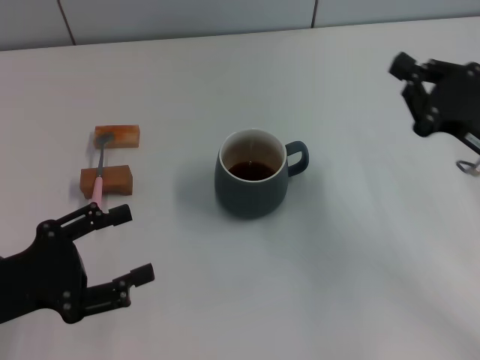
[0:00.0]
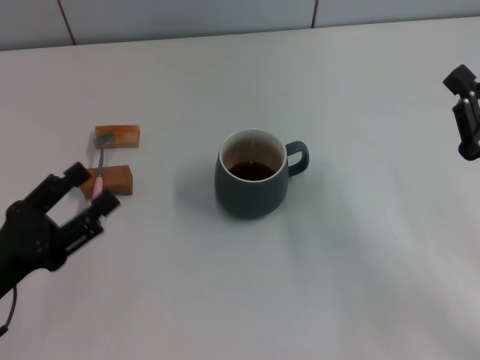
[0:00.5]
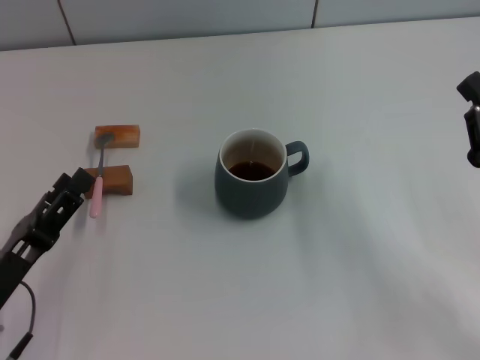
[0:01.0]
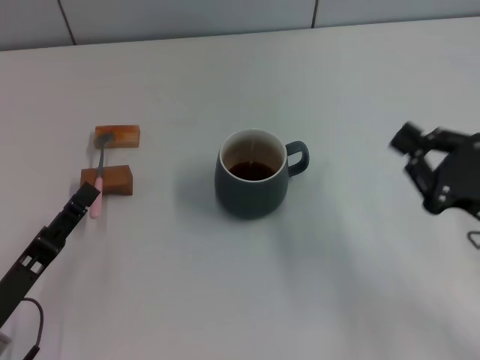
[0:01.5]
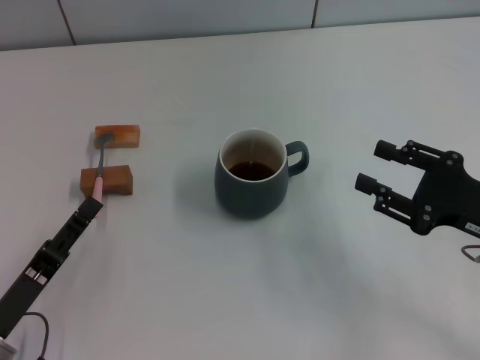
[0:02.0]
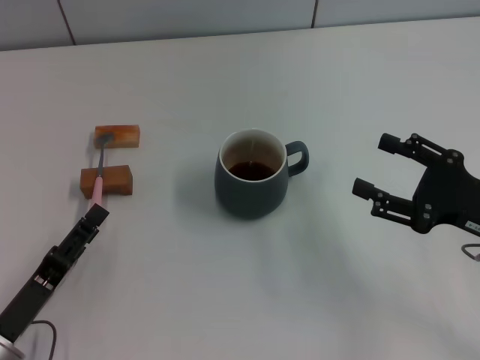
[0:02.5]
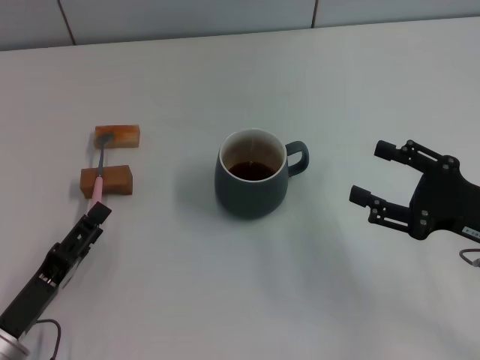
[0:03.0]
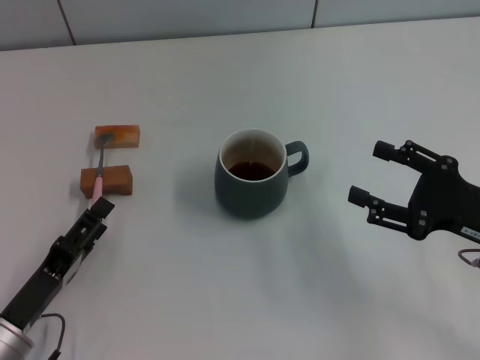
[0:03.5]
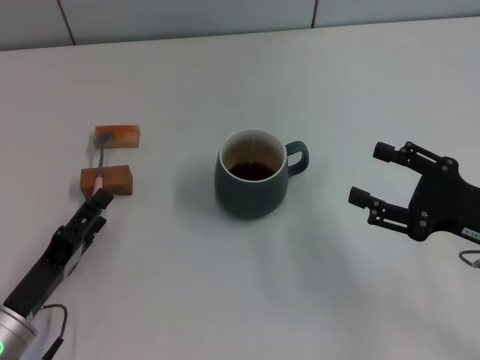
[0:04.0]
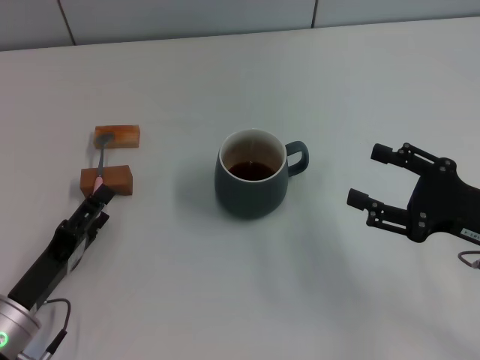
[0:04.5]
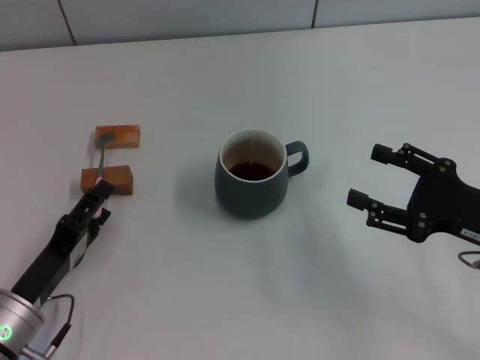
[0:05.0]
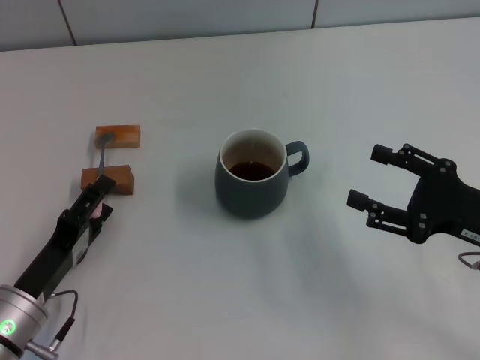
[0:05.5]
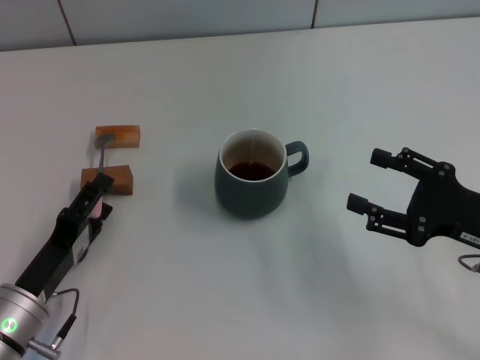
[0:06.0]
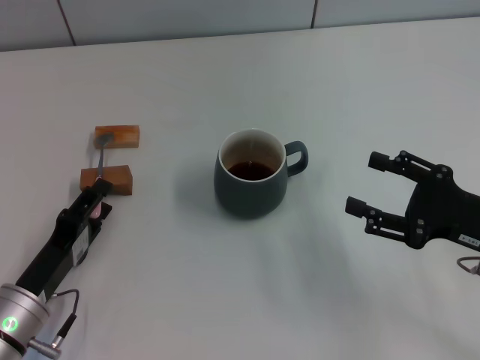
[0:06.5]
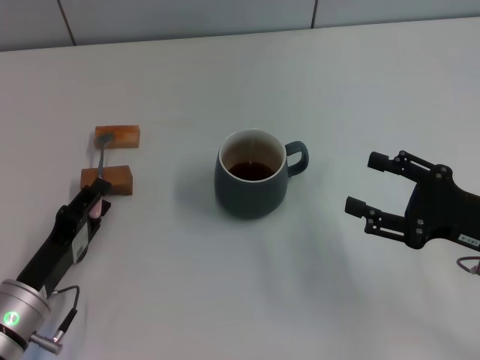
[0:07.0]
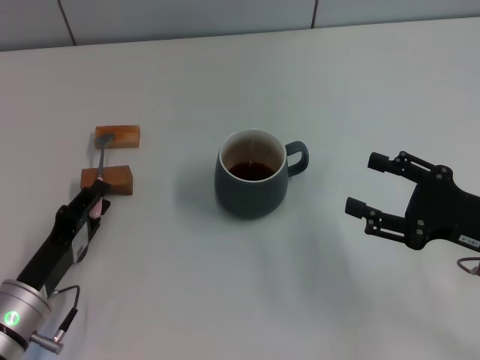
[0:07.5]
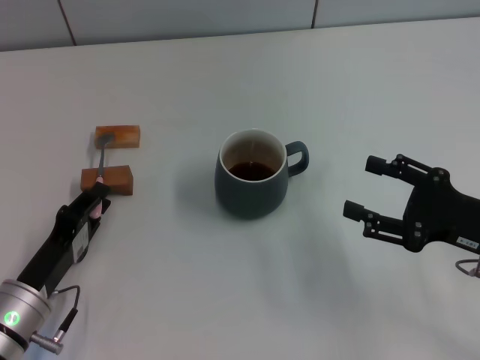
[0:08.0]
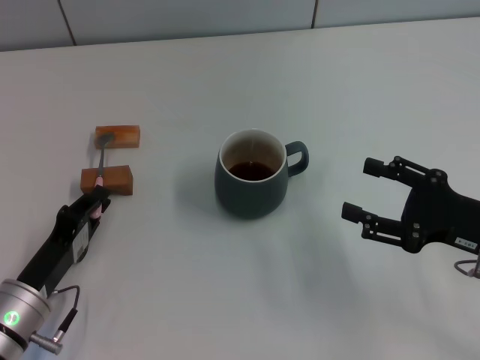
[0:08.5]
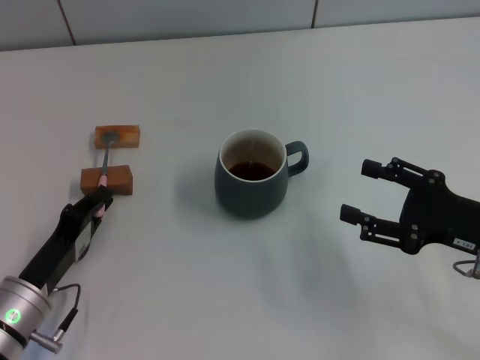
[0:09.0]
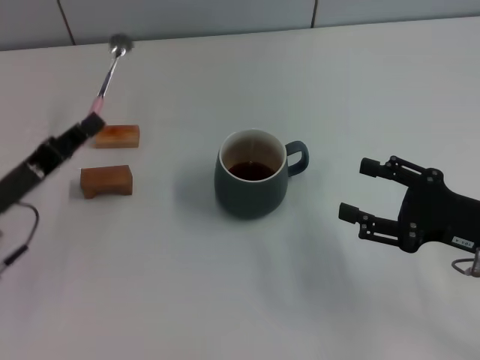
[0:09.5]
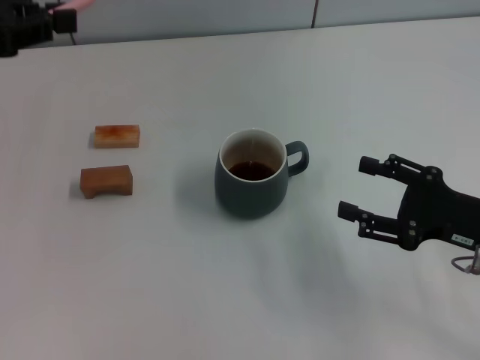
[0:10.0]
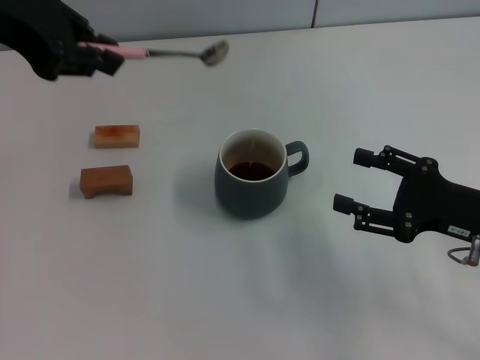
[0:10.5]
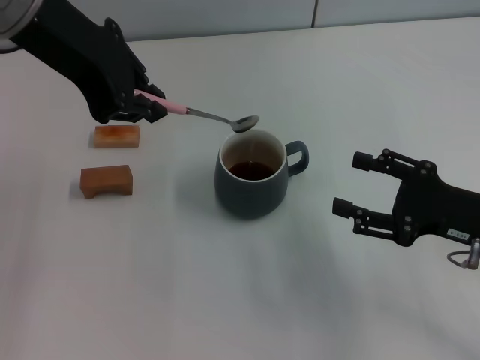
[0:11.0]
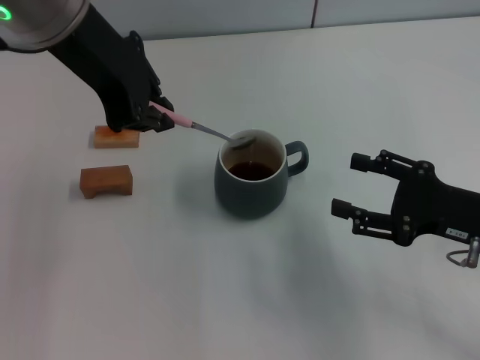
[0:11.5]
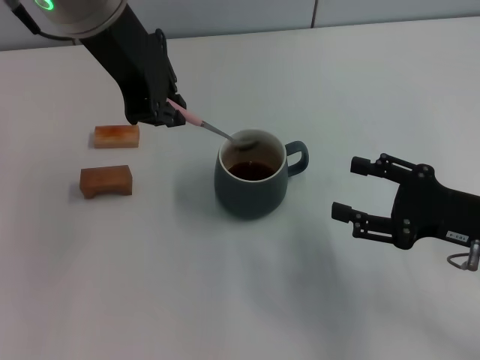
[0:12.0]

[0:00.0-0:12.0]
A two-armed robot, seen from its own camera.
Task of the whole recording: Move the grey cup to the center, lift the pink spoon, stir it three times in the cup, and put the spoon into the cup.
Step, 0:00.0 to 0:09.0: Pick up the spoon with the left gripper.
0:00.0 to 0:02.0: The left gripper travels downward by about 10 cm; the right gripper ends up some 5 cm from where it was, and opens.
0:02.0 to 0:04.0: The right gripper opens.
0:04.0 to 0:06.0: The grippers make only small movements.
0:06.0 to 0:08.0: The left gripper closes.
0:08.0 to 0:10.0: The left gripper is displaced upward and forward by some 30 cm.
0:10.0 to 0:12.0: The left gripper moves to the right, about 20 cm.

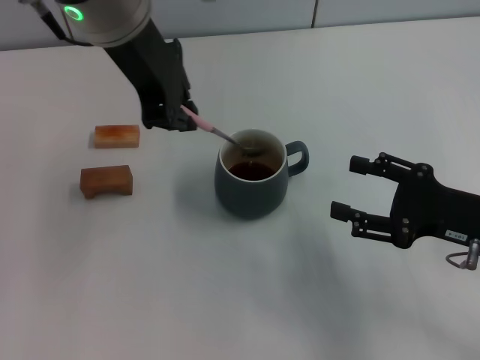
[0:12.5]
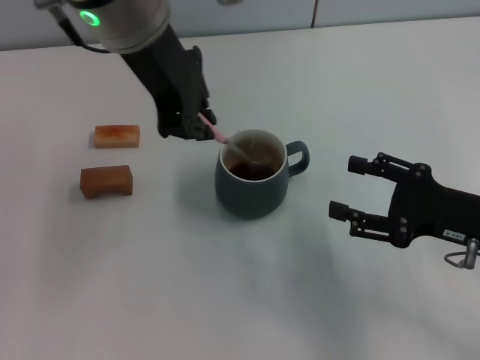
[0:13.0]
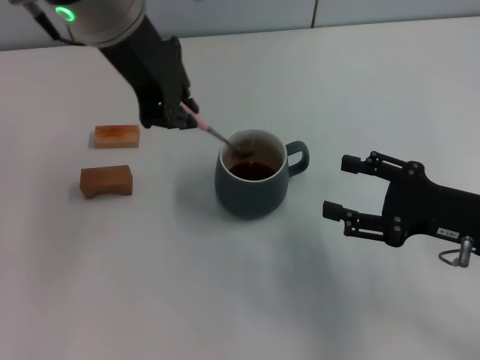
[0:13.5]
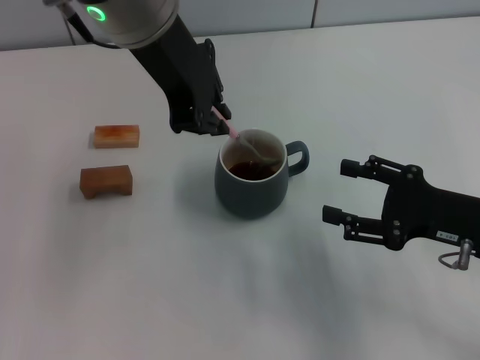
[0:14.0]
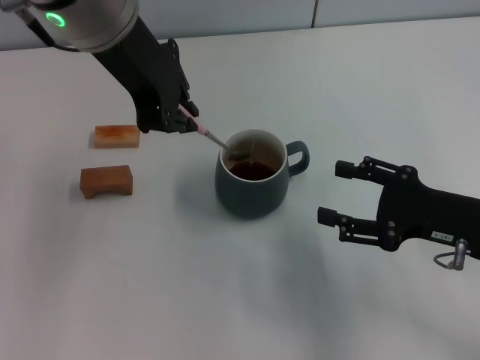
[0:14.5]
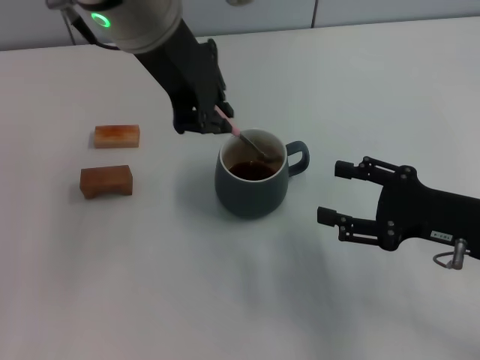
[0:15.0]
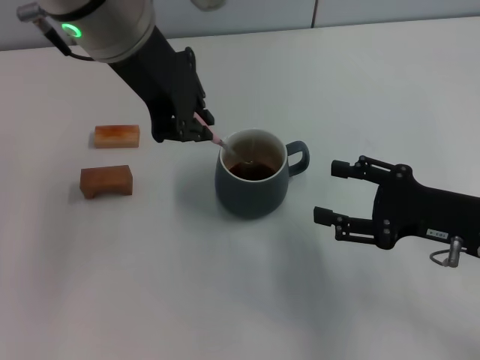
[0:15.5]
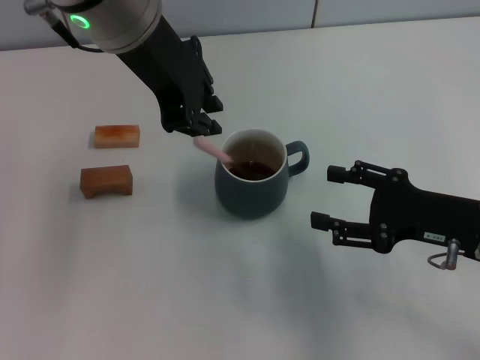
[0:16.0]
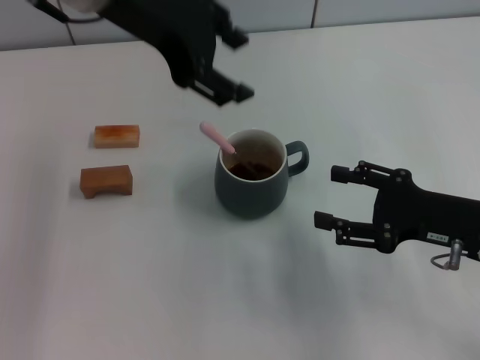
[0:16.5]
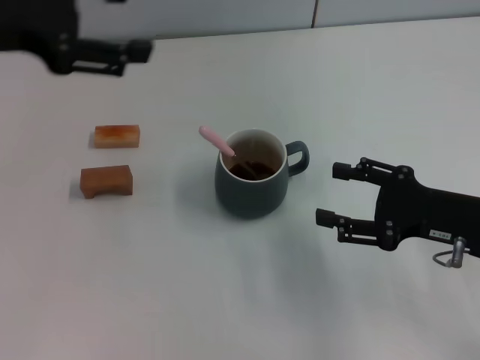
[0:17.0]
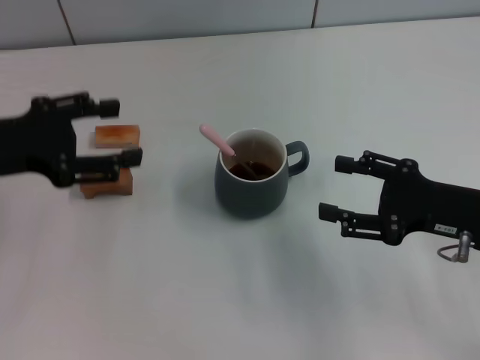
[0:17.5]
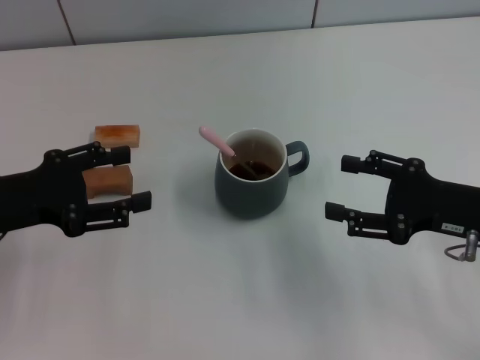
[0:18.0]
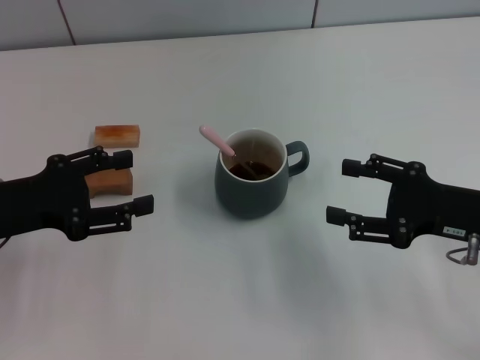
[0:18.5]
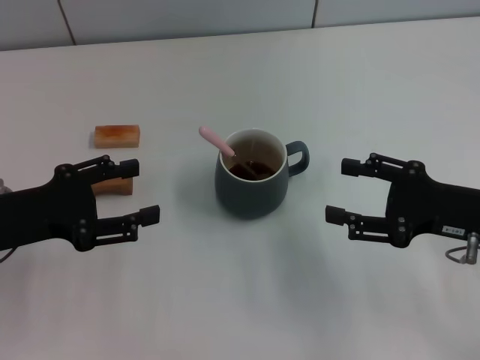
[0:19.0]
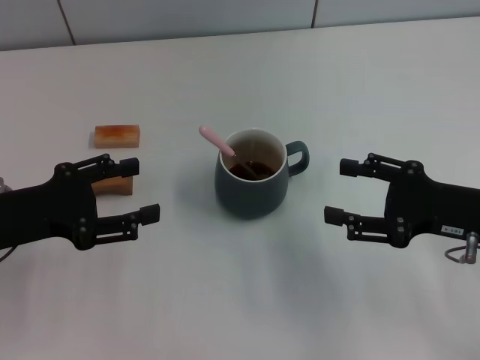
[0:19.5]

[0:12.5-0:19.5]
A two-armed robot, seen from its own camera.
Task of the whole recording: Move the grey cup to the center, lift the pink spoon, stir it three times in the cup, and put the spoon into the cup.
Step, 0:12.5 to 0:16.0: Stir the coffee in the cup with the left gripper.
0:12.5 to 0:16.0: The grippers make only small movements.
0:16.0 to 0:17.5: The left gripper is displaced to the left and downward by about 25 cm, and opens.
0:17.5 to 0:19.5: The left gripper travels downward by some 5 cm.
